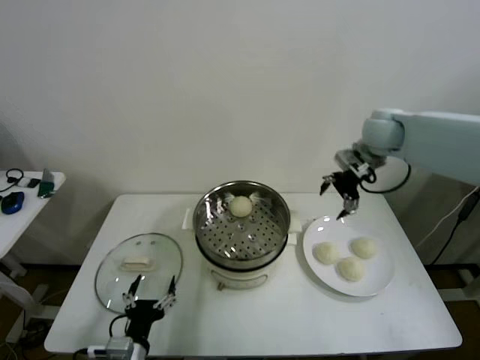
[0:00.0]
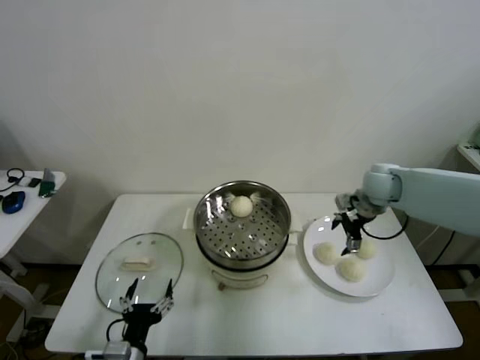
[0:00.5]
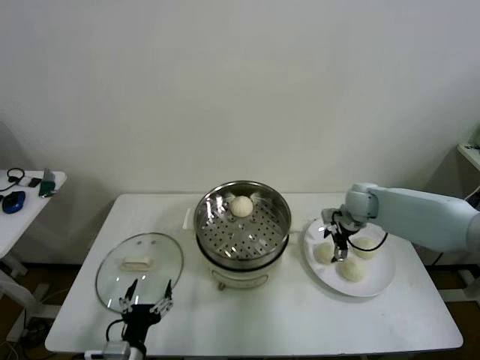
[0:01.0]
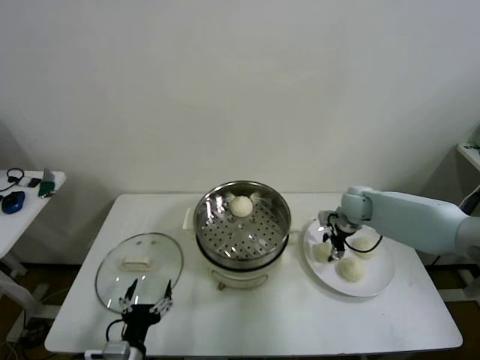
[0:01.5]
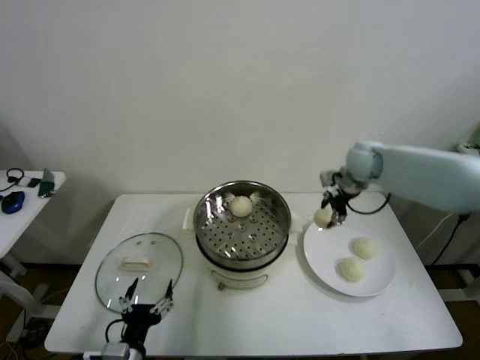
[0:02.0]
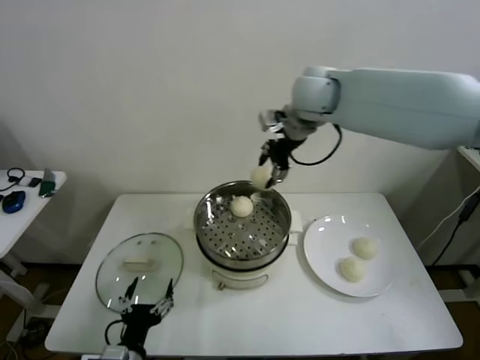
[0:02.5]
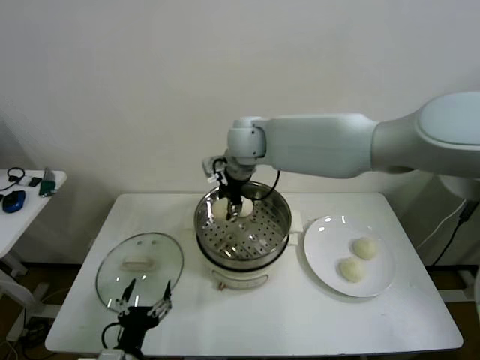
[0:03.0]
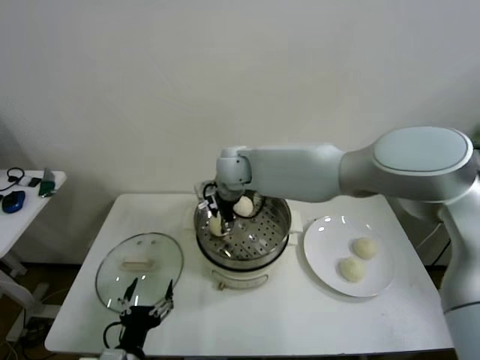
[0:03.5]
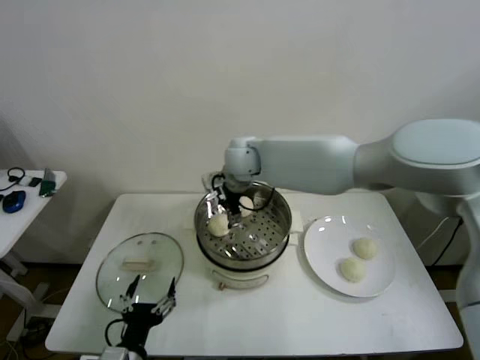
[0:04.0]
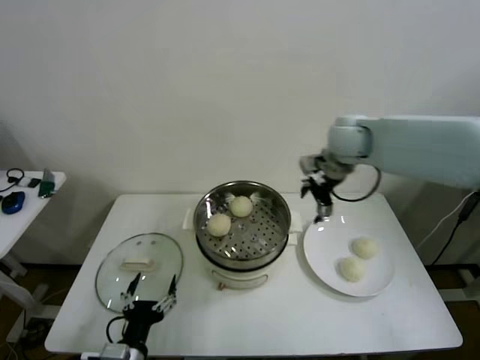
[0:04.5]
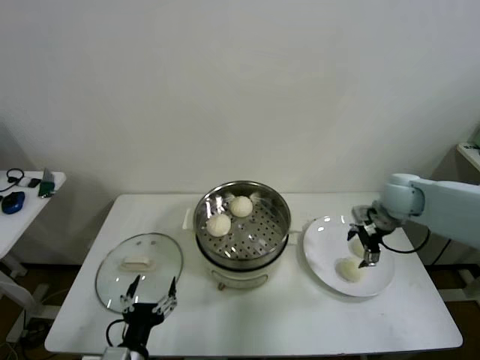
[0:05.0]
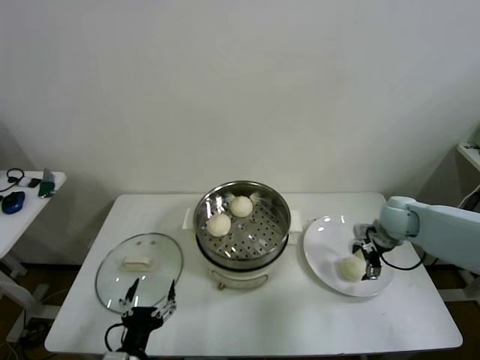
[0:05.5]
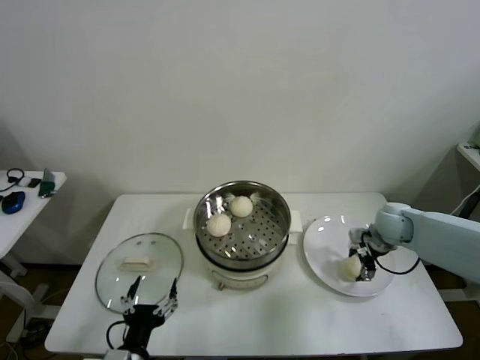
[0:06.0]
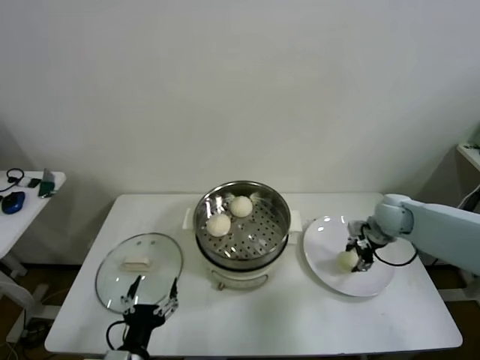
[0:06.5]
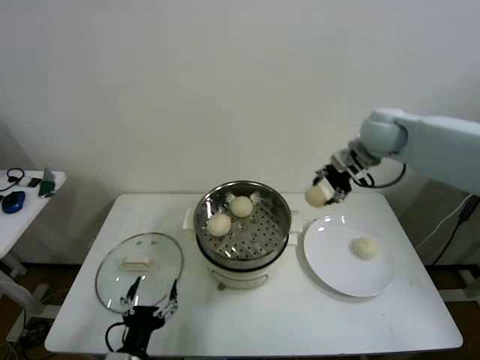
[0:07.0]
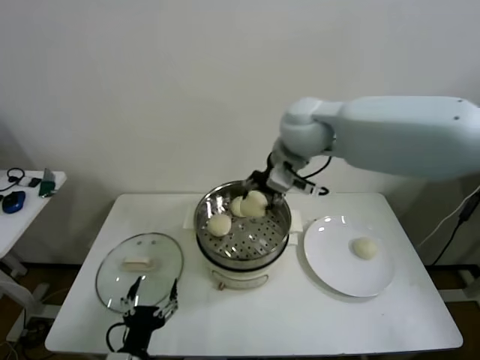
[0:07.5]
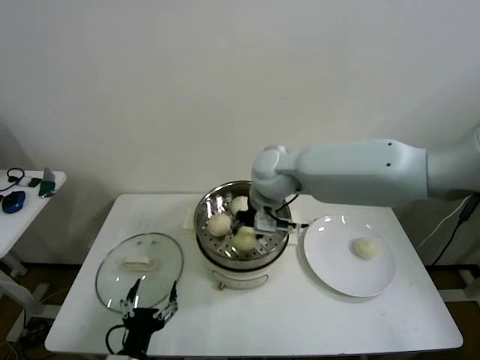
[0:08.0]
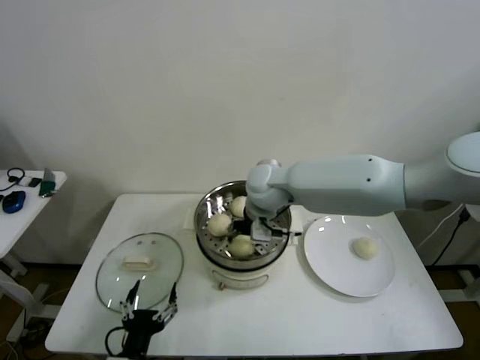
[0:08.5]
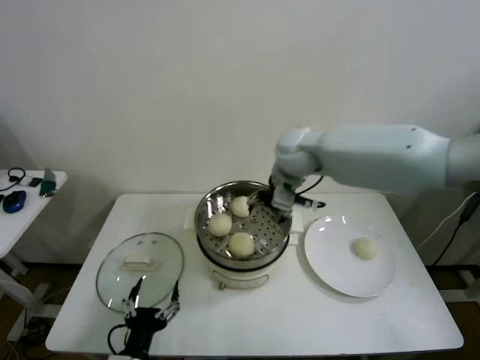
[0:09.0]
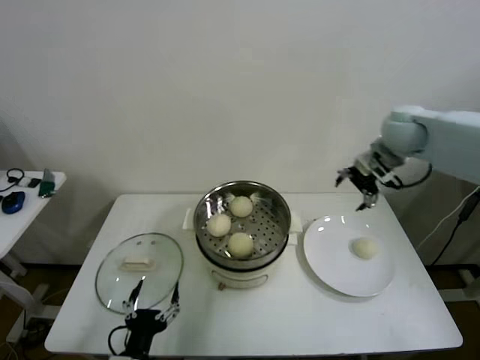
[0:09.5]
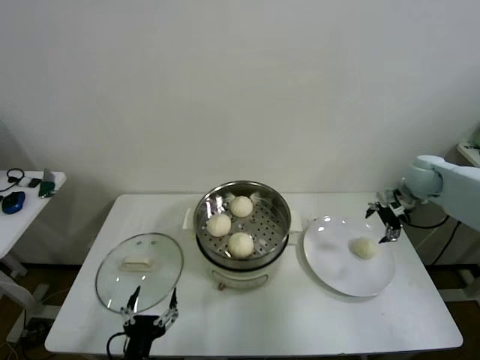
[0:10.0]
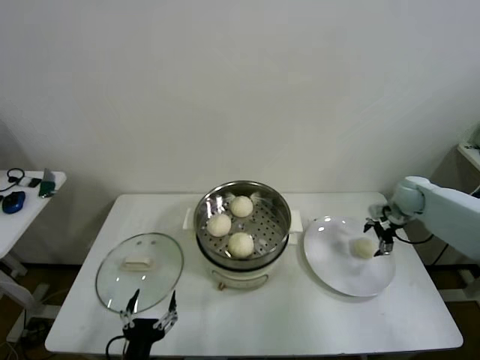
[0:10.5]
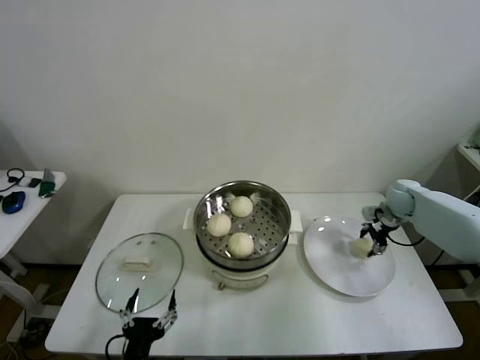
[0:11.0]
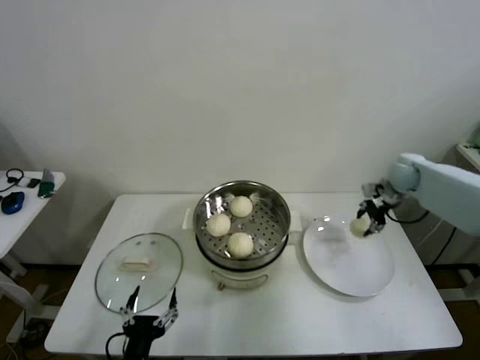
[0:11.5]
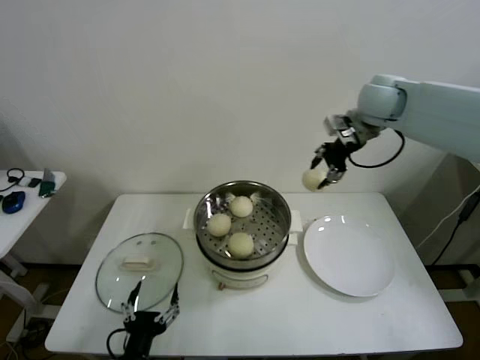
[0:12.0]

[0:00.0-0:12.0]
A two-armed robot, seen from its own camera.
Step, 0:02.0 to 0:03.5: Place the baozi on the steamer with right gripper.
Step, 0:04.0 to 0:06.0: Grasp the baozi in the plate with right gripper.
Step, 0:06.5 to 0:08.5: Place the baozi on the steamer with right gripper.
Step, 0:09.0 to 0:11.0: Grasp the baozi in the plate with right gripper.
0:00.0 to 0:02.0: The right gripper goes downward and returns, about 20 cm each way, and closes up.
0:02.0 to 0:04.0: The right gripper travels to the left by roughly 25 cm, and opens its fingers.
0:04.0 to 0:06.0: The right gripper is displaced to the right and downward by some 40 cm, and closes up.
0:06.0 to 0:08.0: The right gripper travels to the left and upward by roughly 35 cm, and closes up.
0:08.0 to 0:10.0: The right gripper goes approximately 35 cm to the right, and opens.
0:10.0 to 0:12.0: The right gripper travels upward and to the left by approximately 25 cm, and closes.

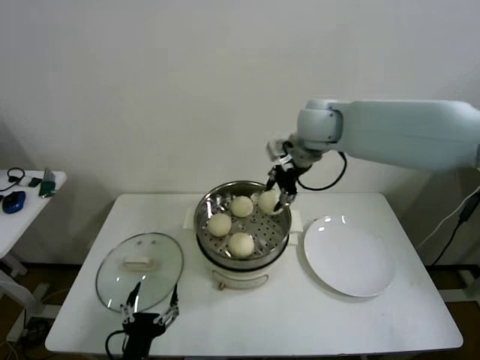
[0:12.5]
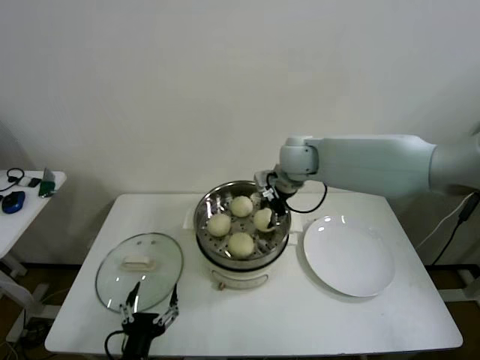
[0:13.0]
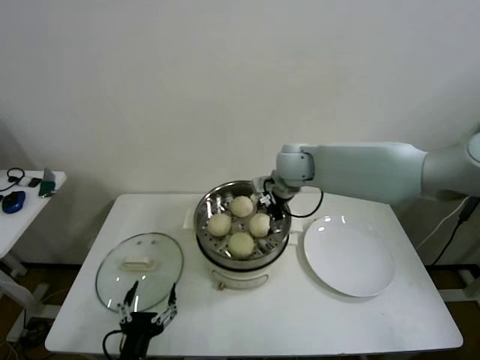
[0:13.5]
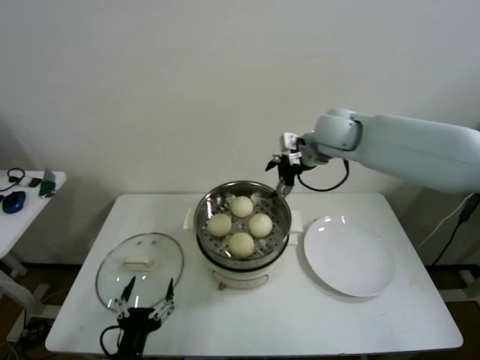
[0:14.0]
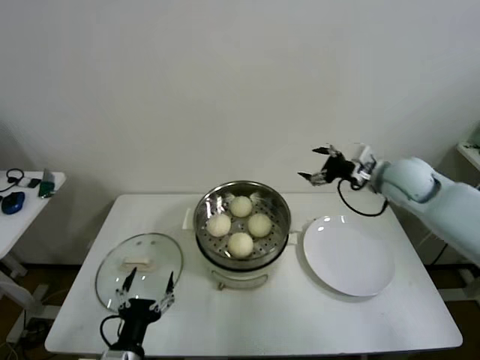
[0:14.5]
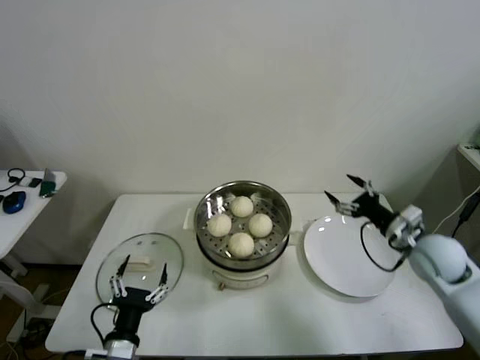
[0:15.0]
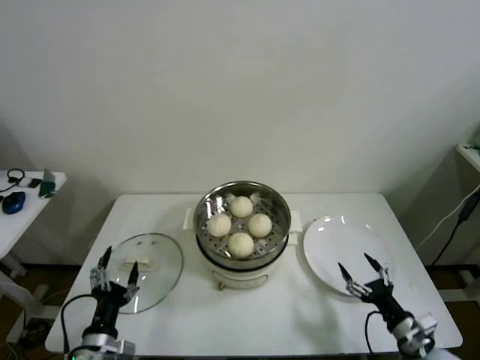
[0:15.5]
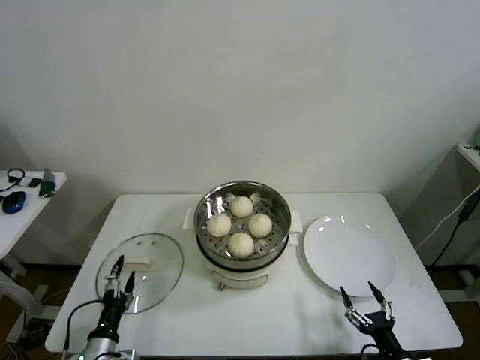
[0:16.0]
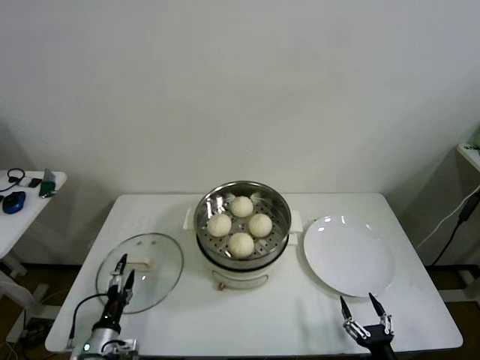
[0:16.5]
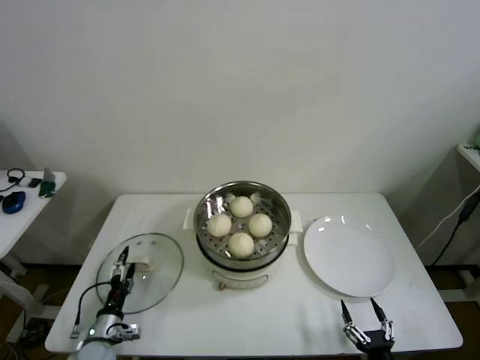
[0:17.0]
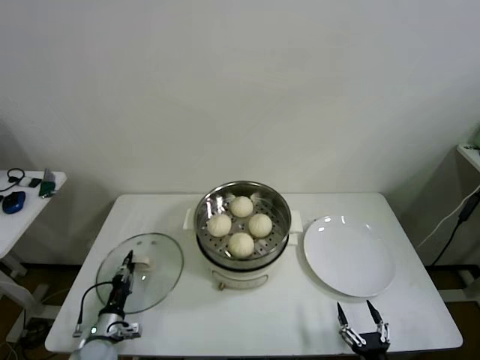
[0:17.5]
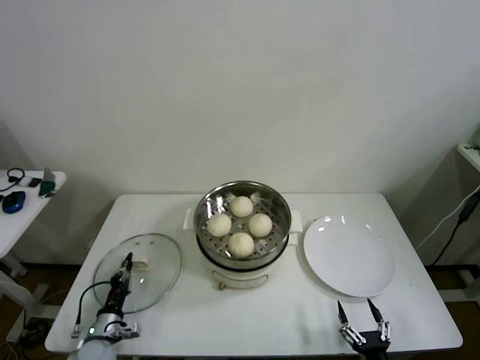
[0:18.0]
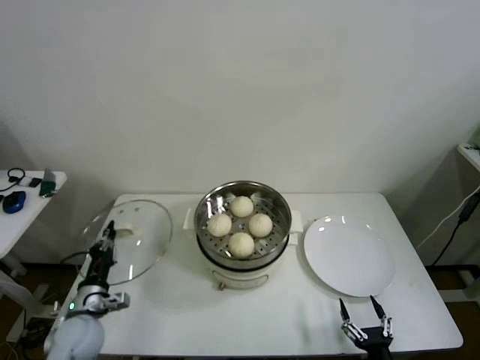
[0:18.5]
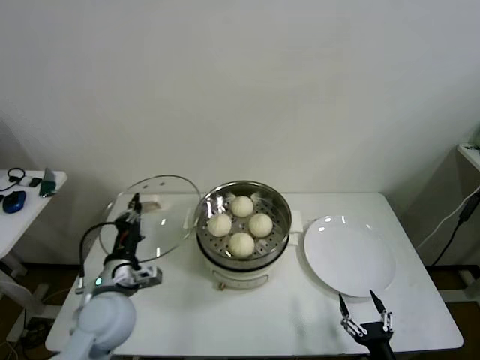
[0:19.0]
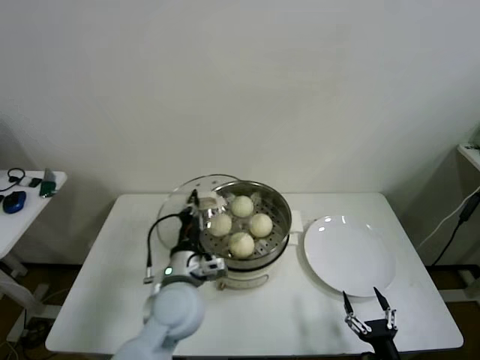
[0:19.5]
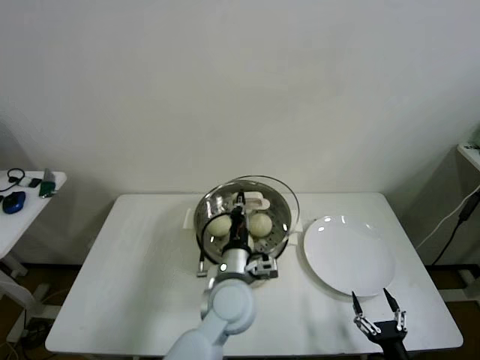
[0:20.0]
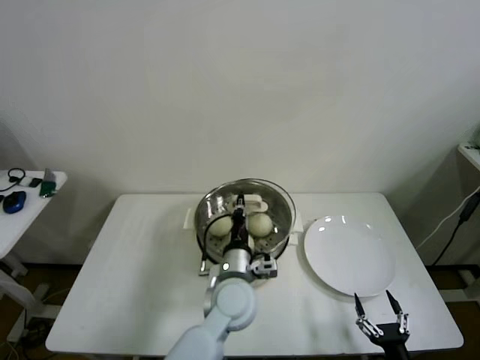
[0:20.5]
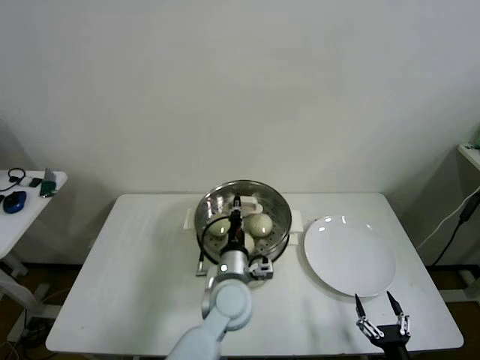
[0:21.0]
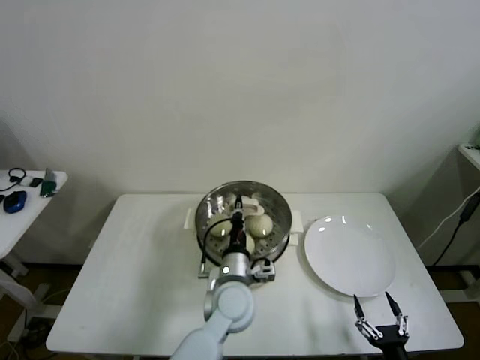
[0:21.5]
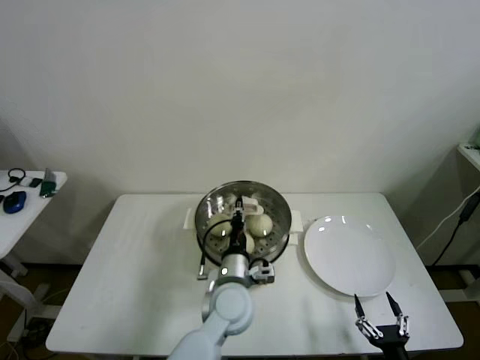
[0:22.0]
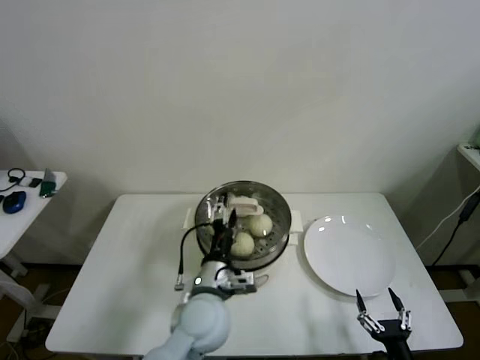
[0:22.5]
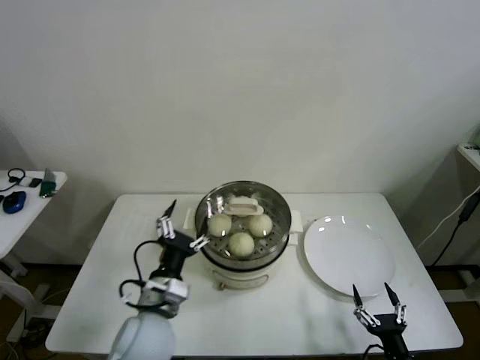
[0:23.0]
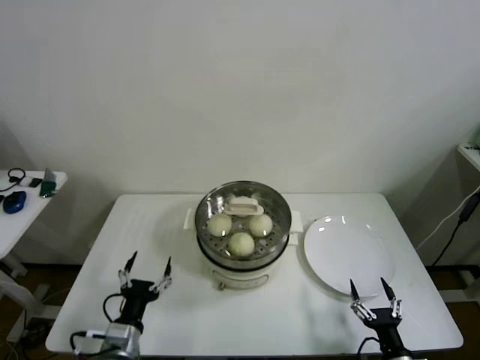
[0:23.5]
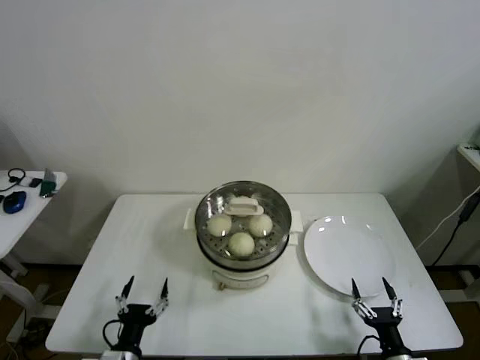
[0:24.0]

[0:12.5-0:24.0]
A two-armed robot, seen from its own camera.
Step, 0:14.0 to 0:17.5: Grasp the pot lid with left gripper.
Step, 0:18.0 to 0:21.5: Place the pot lid on the steamer with left gripper.
0:12.5 to 0:14.5: The right gripper shifts roughly 20 cm to the right and downward, and opens.
0:14.5 to 0:16.5: The right gripper travels backward and downward by approximately 50 cm, while the left gripper goes approximately 20 cm downward, to the left and forward.
0:16.5 to 0:18.5: The left gripper shifts some 10 cm upward and forward, and closes its fingers.
0:18.5 to 0:20.0: The left gripper shifts approximately 35 cm to the right.
0:20.0 to 0:22.0: The grippers move only a little.
0:22.0 to 0:24.0: The left gripper shifts some 30 cm to the left, backward and downward, and opens up.
